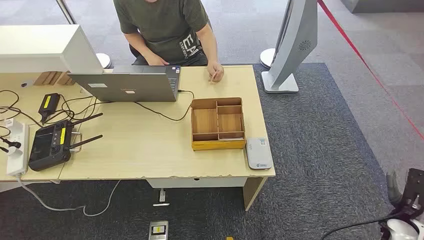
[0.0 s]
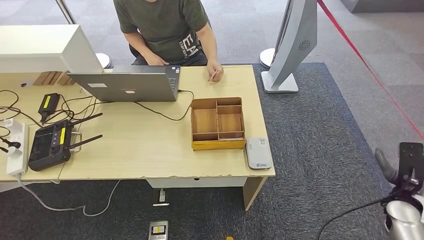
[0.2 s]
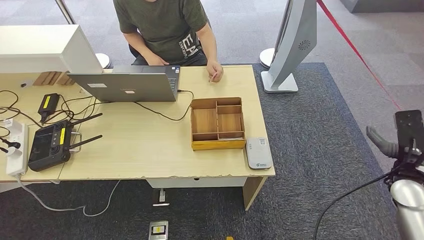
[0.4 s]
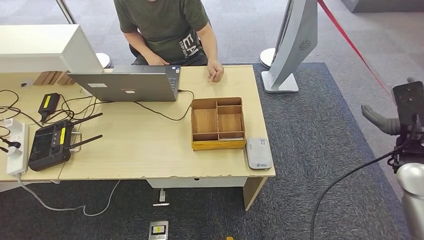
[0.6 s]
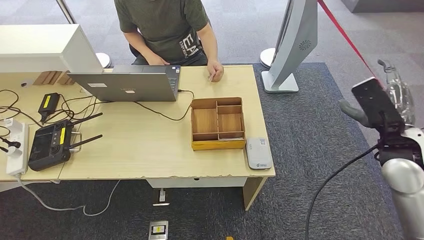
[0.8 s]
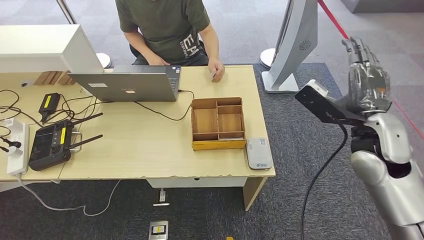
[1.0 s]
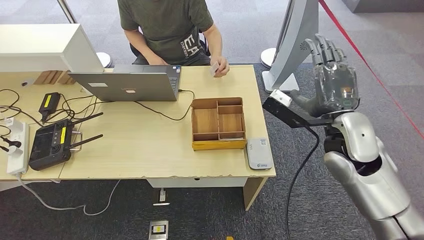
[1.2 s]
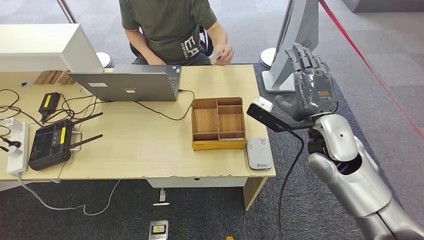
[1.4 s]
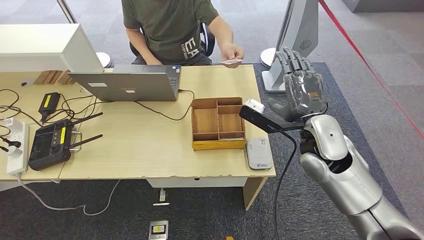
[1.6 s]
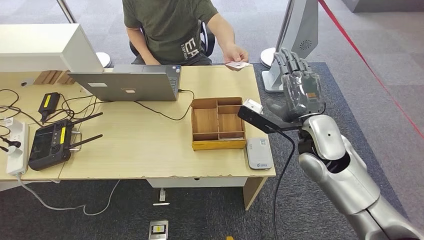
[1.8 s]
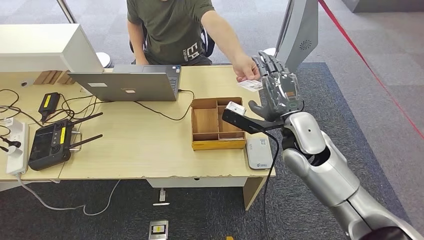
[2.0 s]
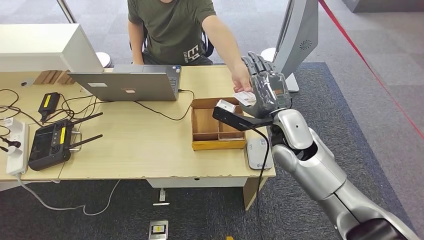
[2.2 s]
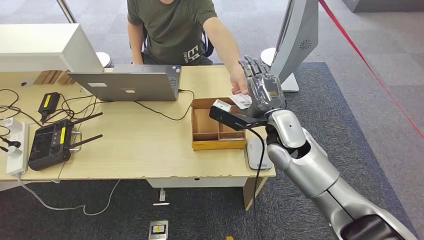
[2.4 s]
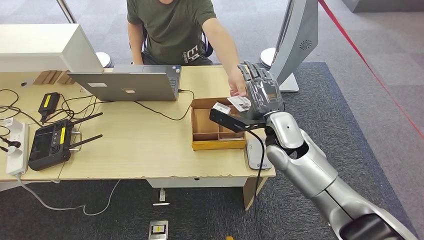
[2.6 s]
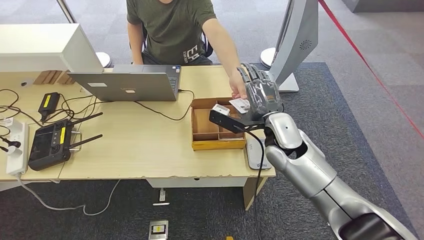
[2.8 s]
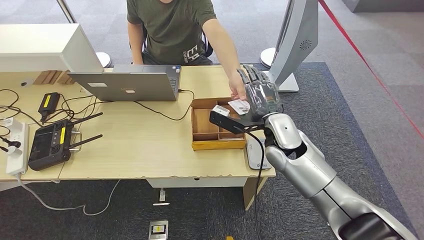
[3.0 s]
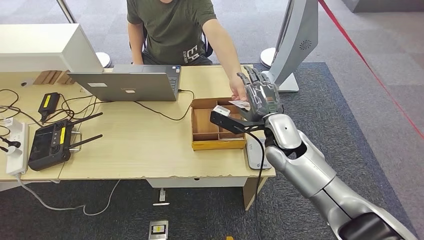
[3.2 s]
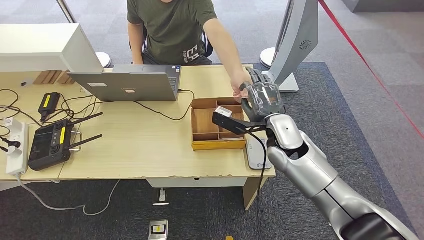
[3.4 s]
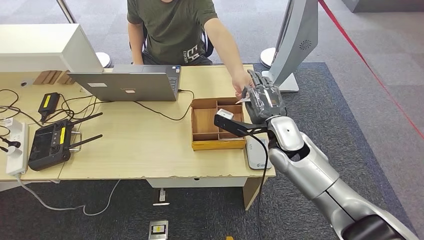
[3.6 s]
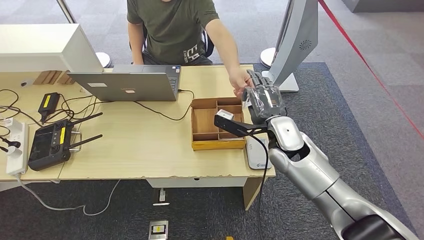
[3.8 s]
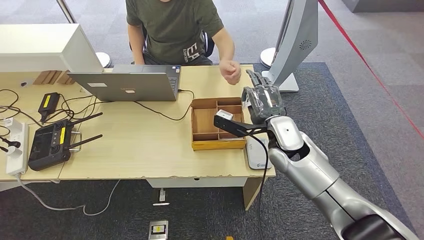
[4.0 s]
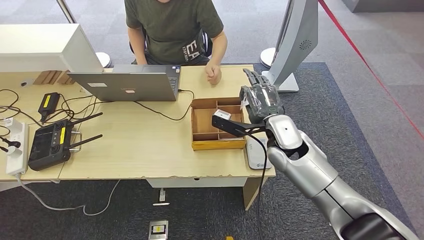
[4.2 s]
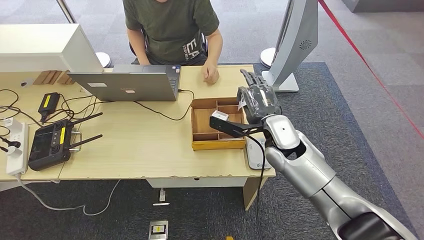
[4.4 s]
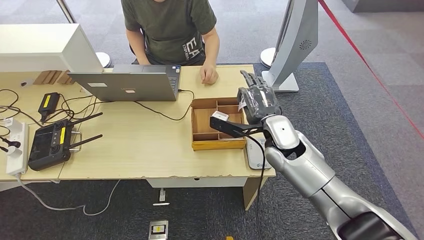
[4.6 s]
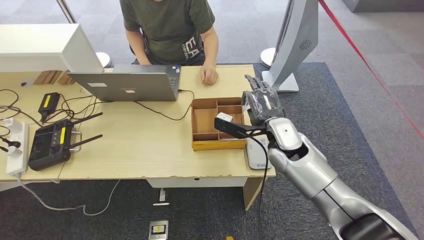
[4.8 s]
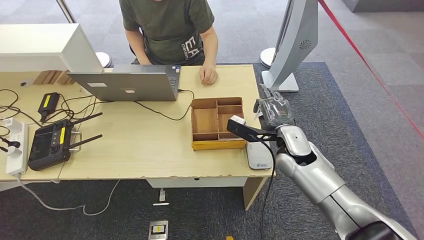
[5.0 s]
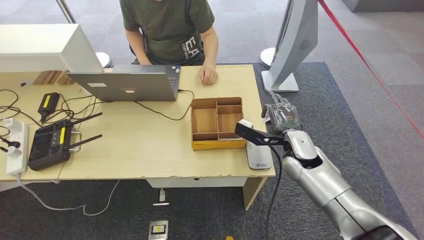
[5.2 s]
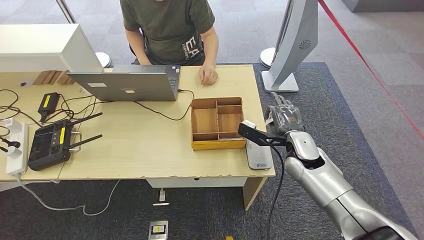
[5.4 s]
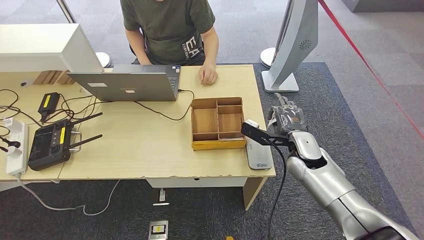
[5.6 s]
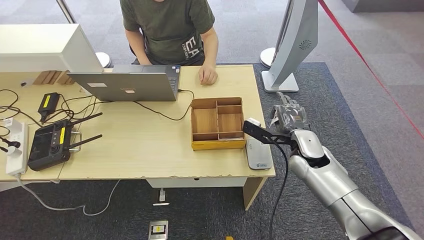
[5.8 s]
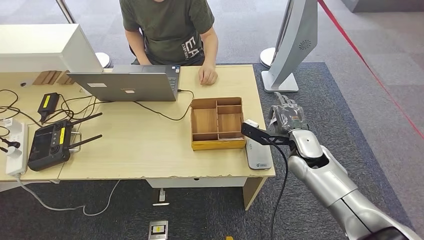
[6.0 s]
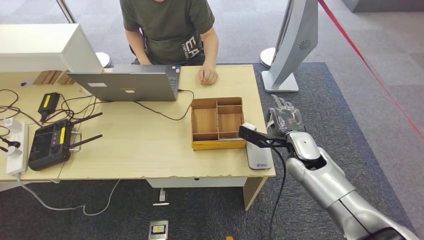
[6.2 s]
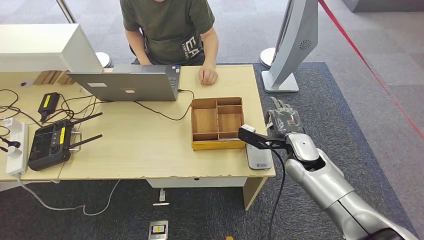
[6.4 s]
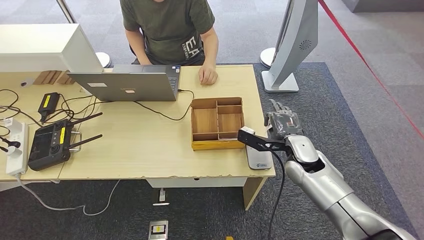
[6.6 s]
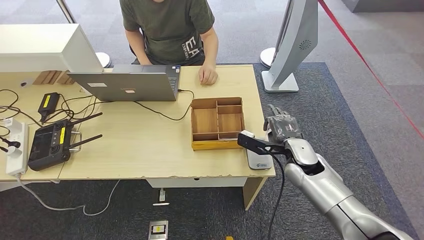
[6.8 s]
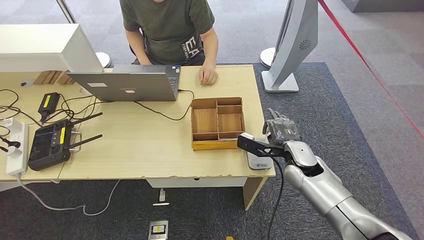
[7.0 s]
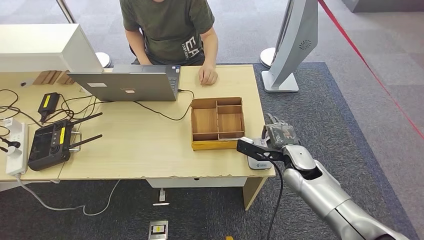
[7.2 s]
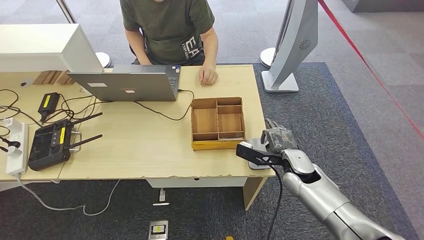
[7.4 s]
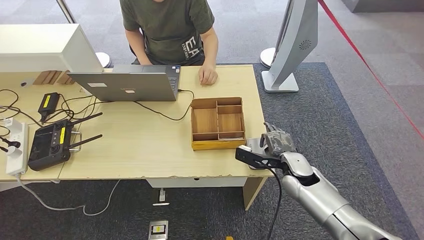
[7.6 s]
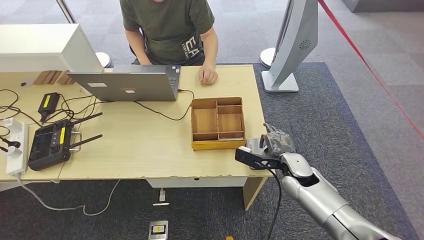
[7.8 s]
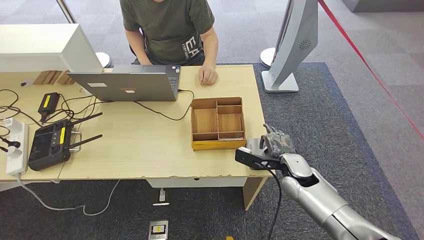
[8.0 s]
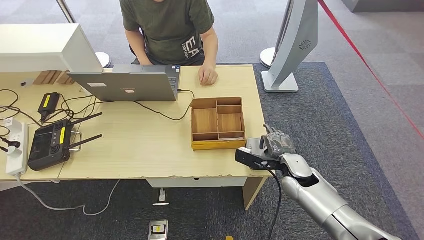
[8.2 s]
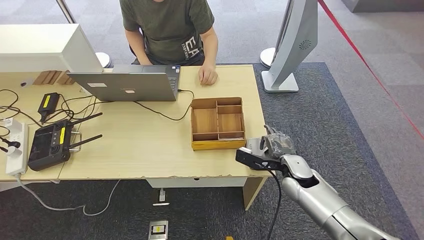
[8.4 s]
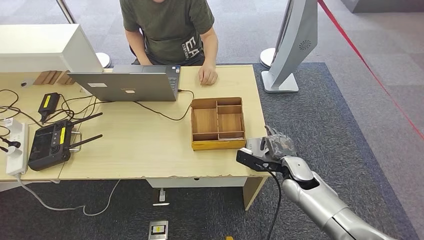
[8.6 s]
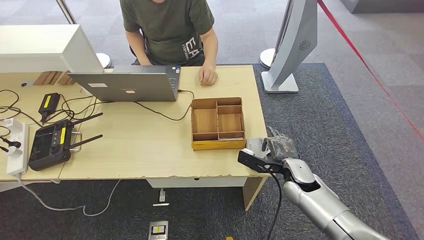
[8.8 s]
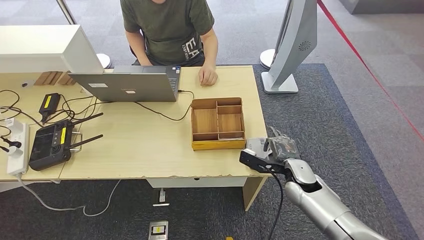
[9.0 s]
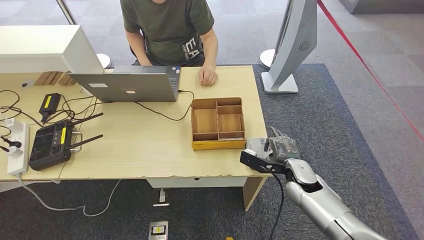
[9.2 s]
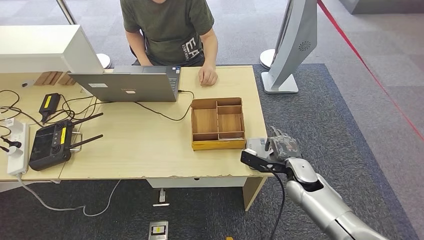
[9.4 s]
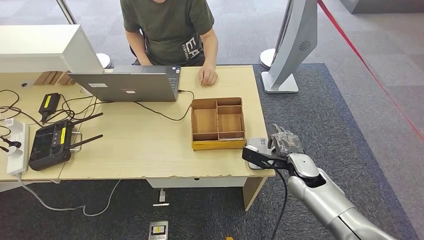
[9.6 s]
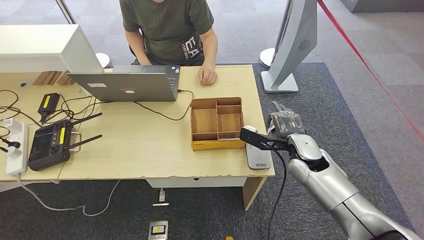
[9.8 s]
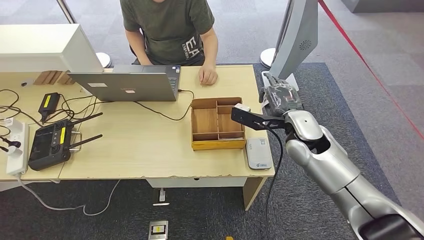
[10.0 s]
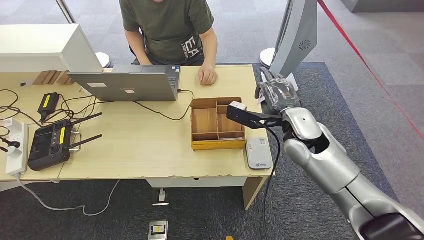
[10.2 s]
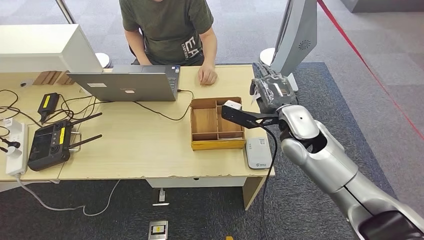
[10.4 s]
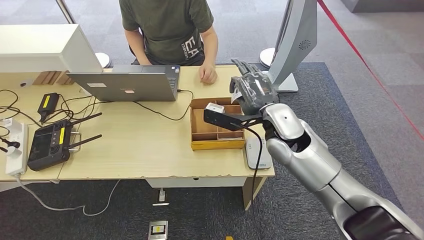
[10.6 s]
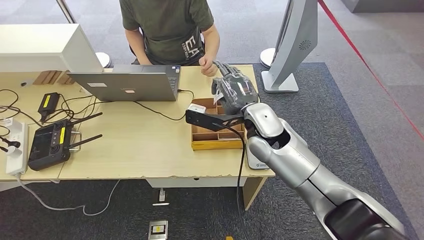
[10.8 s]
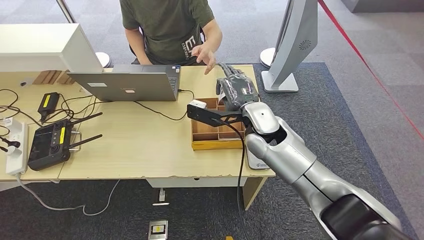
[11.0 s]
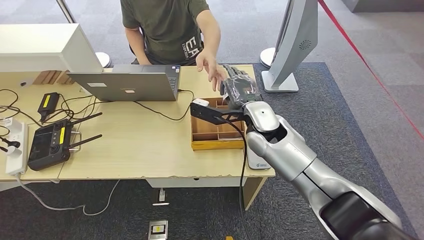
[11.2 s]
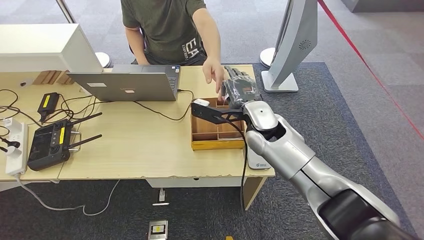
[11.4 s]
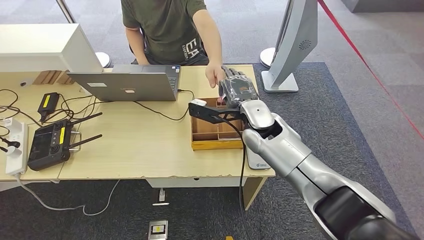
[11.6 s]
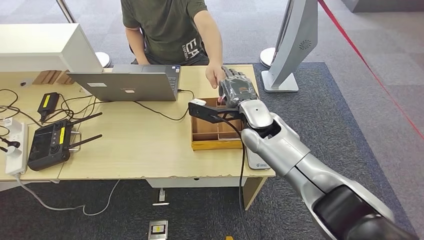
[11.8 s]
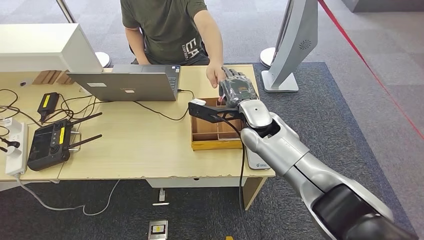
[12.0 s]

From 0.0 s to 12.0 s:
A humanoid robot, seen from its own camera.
Step, from 0.0 s to 4.8 s: Take the ID card from the person's hand.
Step, from 5.2 s to 9.6 s: Place the ID card on the card reader.
From 1.6 s to 3.0 s: The right hand shifts roughly 5 cm to the left.
From 3.0 s to 4.4 s: There are only small adjustments of the hands.
From 4.4 s to 6.0 s: The right hand is displaced to the right and downward by some 10 cm.
From 6.0 s to 7.6 s: The right hand moves downward, roughly 5 cm.
From 7.6 s to 9.0 s: The hands move only a little.
From 9.0 s to 10.4 s: The right hand goes roughly 20 cm upward.
From 10.4 s to 12.0 s: The right hand heads to the left, covering about 10 cm.

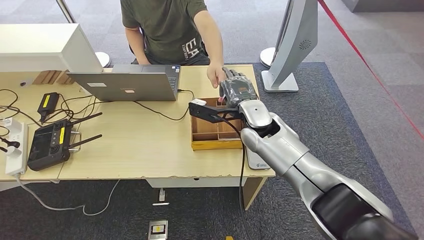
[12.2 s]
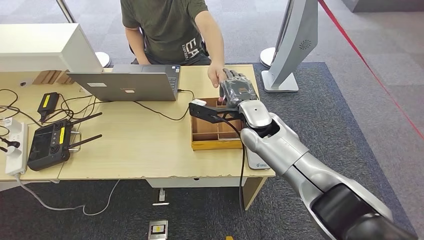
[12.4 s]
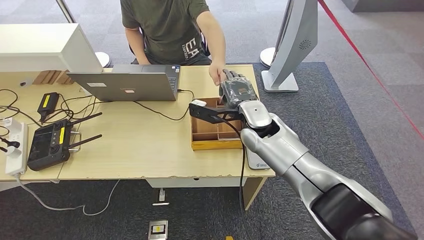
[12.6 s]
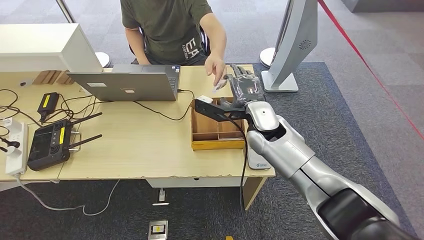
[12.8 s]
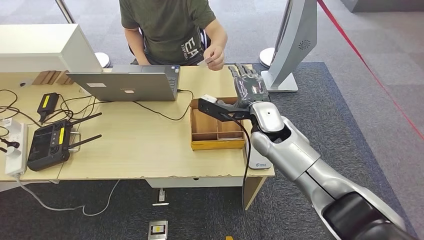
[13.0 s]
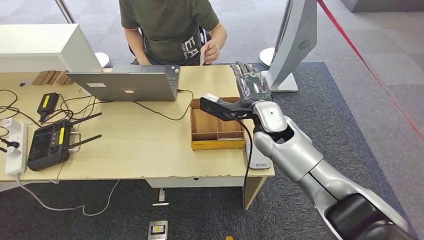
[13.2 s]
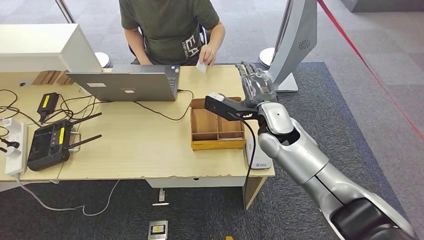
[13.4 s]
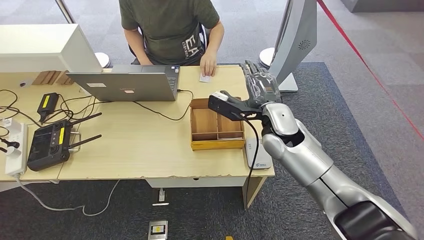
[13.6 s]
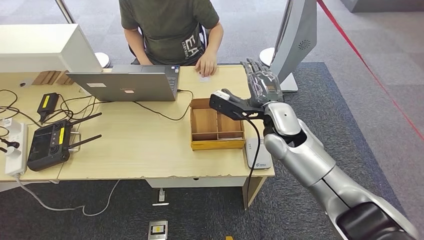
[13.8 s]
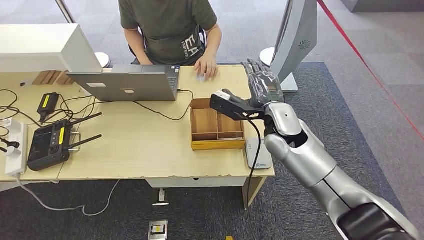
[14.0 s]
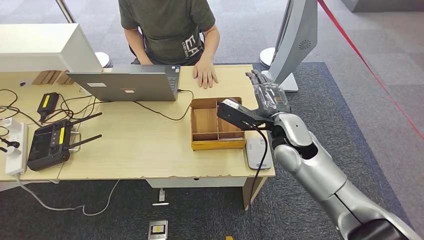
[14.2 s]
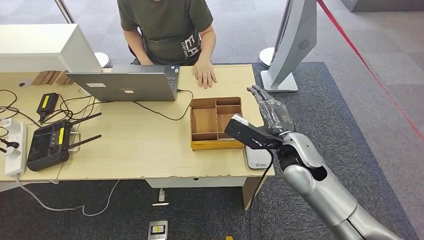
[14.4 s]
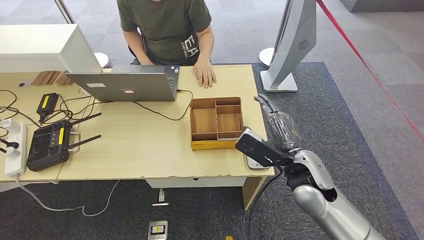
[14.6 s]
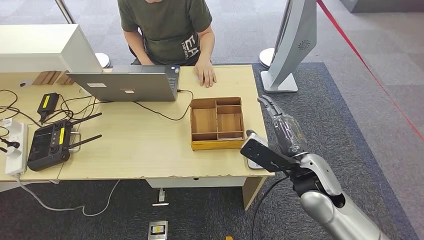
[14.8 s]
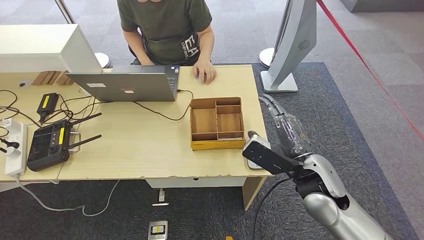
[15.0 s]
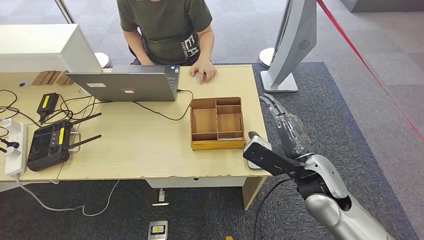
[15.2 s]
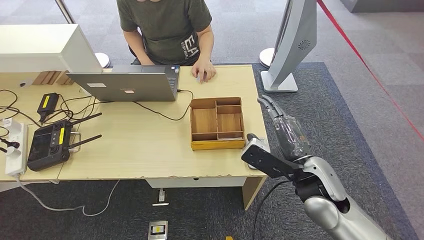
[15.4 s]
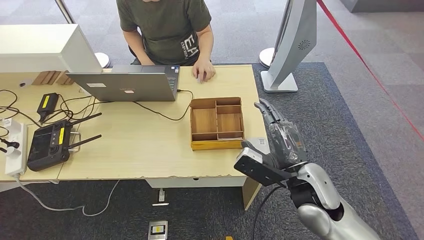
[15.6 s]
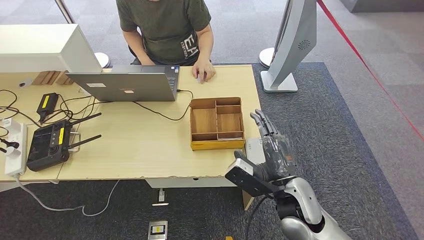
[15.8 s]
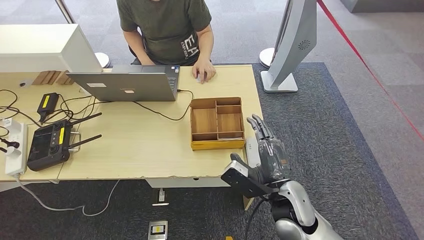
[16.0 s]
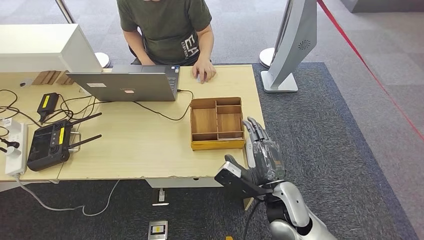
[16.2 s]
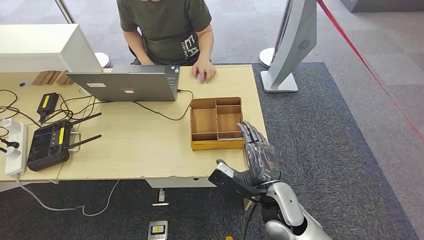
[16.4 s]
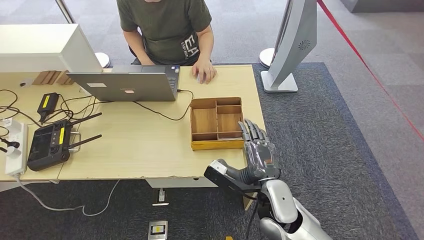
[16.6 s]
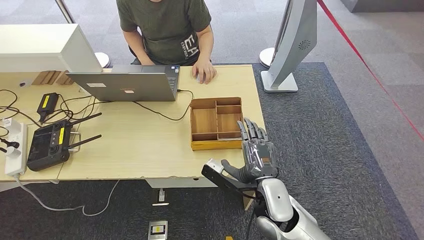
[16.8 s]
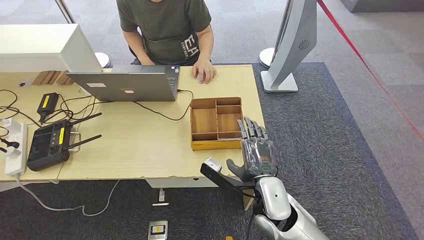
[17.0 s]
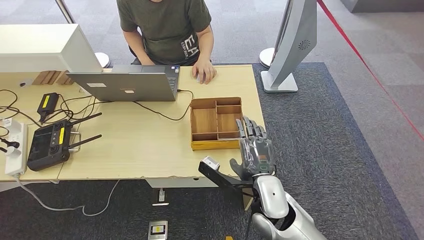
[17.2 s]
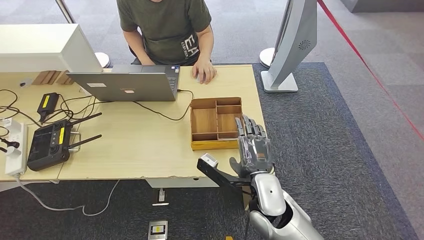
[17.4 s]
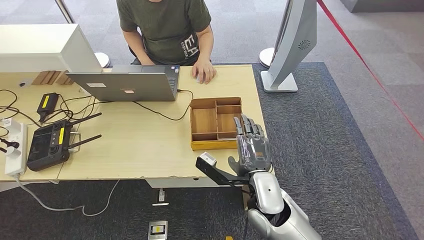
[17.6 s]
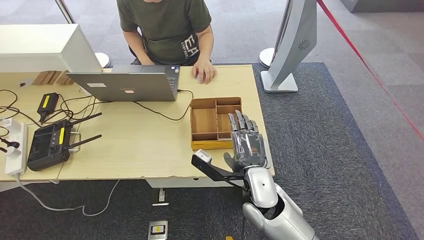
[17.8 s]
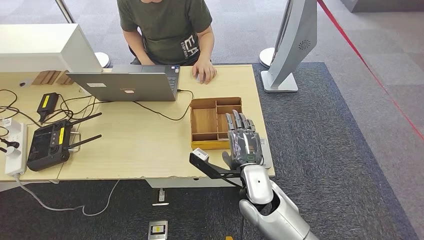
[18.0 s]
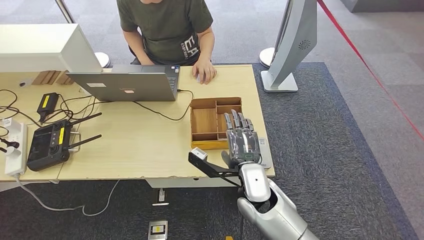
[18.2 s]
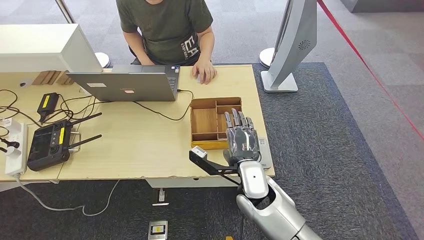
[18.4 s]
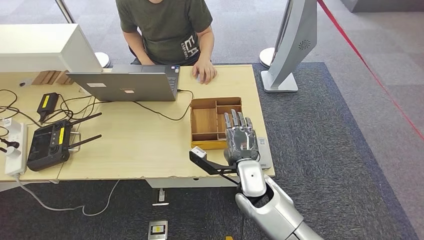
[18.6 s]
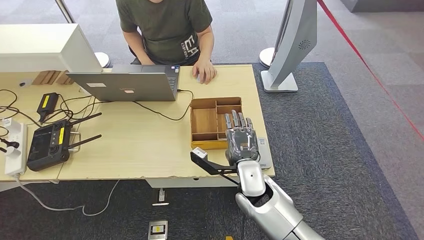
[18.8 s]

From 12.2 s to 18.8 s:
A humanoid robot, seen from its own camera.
From 12.2 s to 13.8 s: The right hand shifts by approximately 5 cm.
From 13.8 s to 15.4 s: The right hand goes roughly 15 cm backward.
From 15.4 s to 17.2 s: The right hand heads to the left and downward, covering roughly 10 cm.
From 17.2 s to 18.8 s: The right hand shifts roughly 5 cm forward.
